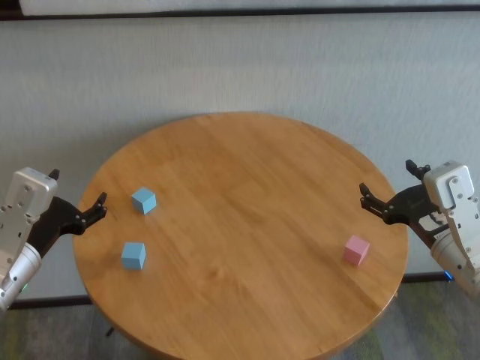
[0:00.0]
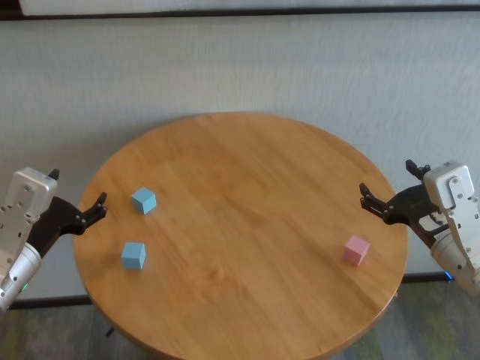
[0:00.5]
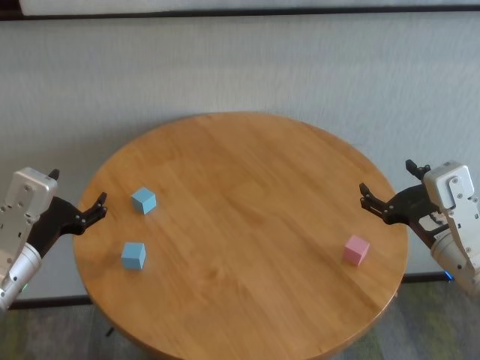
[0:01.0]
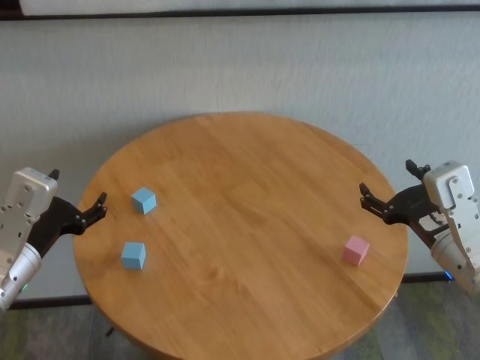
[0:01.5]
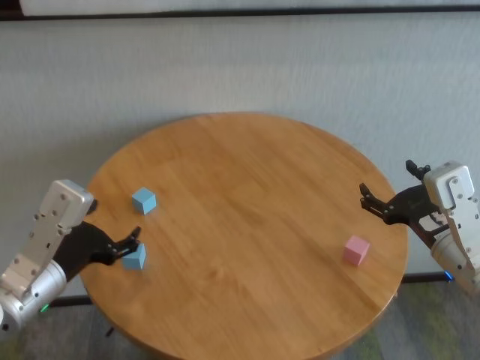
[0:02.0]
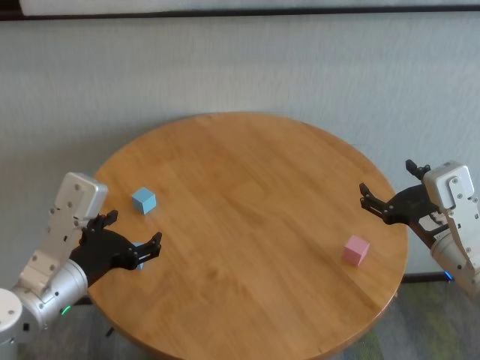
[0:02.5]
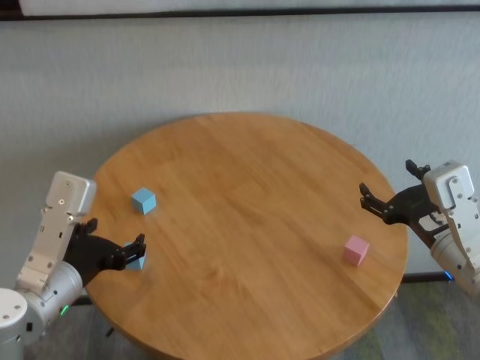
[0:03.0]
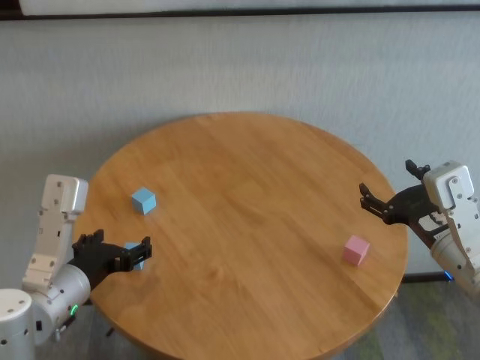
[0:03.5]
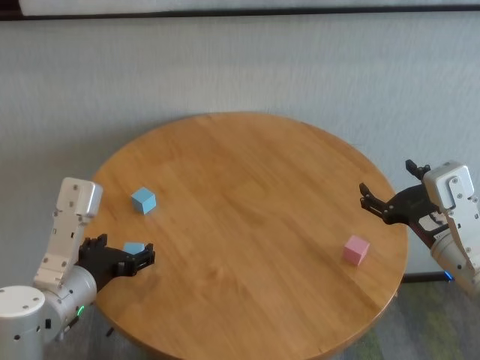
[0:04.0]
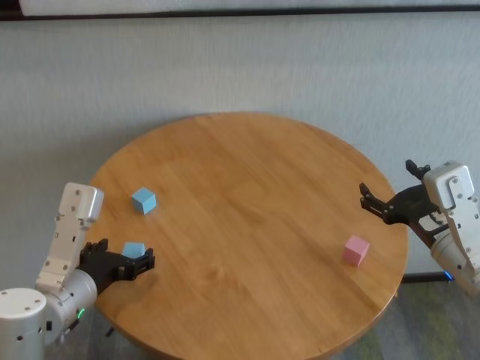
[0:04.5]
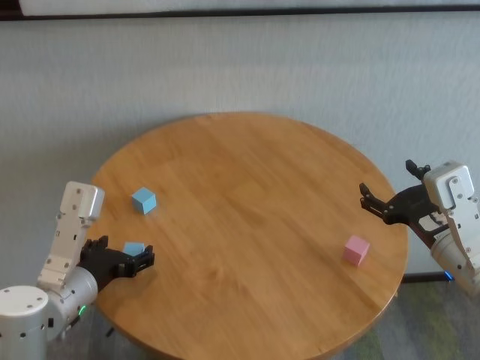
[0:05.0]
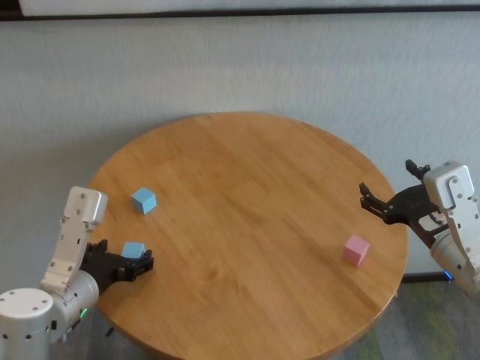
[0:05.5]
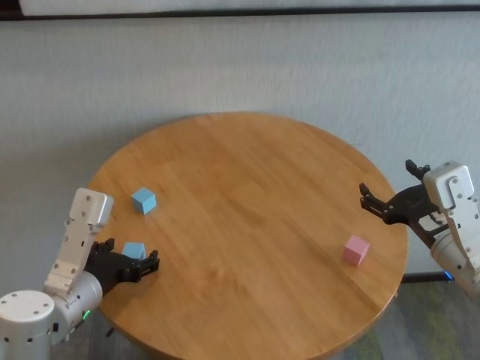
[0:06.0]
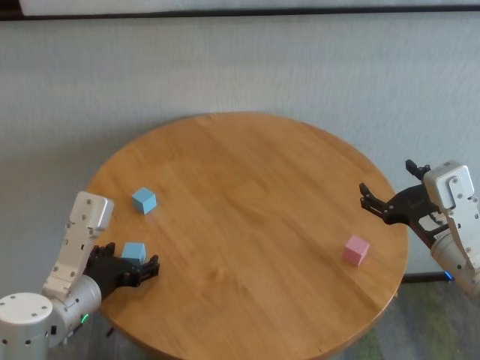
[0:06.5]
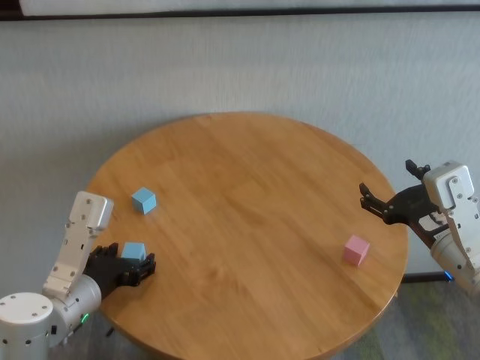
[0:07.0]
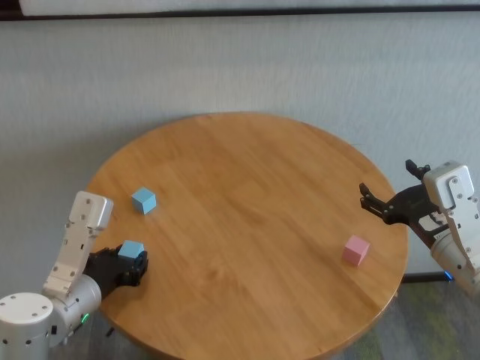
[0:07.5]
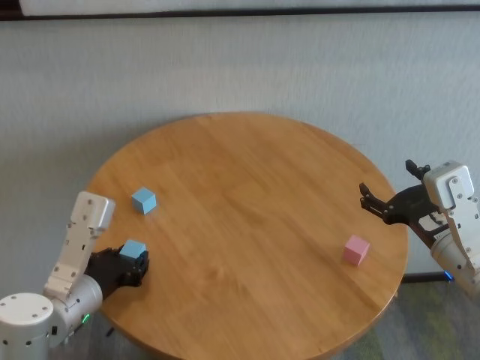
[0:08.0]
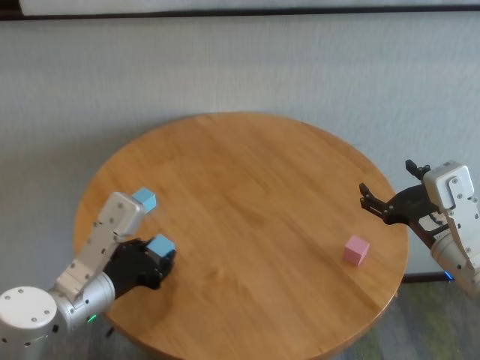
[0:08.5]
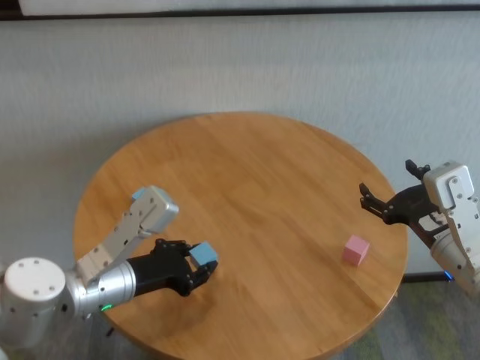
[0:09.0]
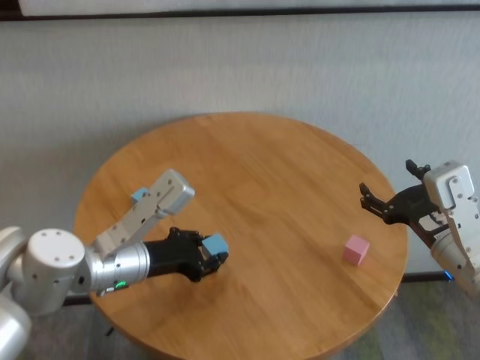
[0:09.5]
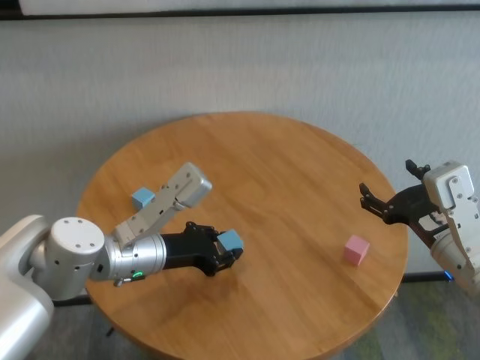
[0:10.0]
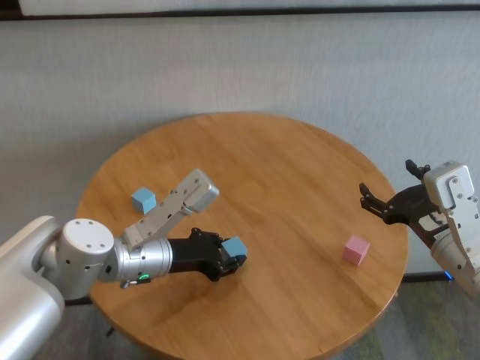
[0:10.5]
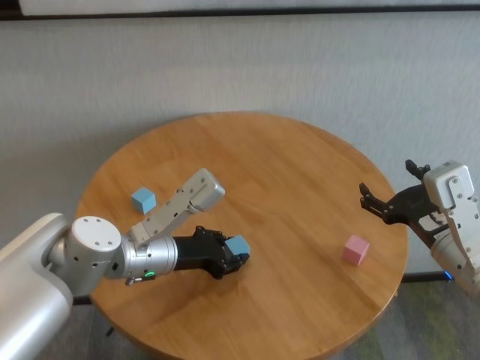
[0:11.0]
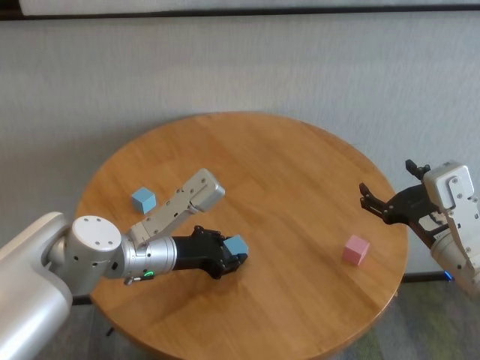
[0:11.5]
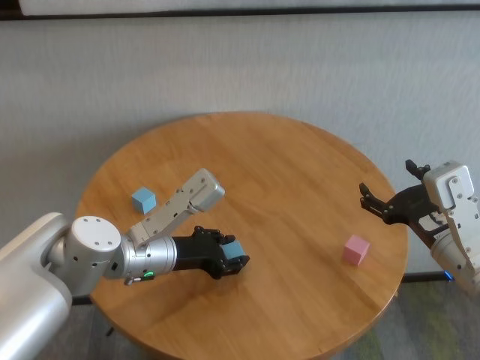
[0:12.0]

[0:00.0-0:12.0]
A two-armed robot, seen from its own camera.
Task of the whole recording: stack building blocks on the table.
Step, 0:00.0 to 0:07.5: Grasp the blue building block with left gripper.

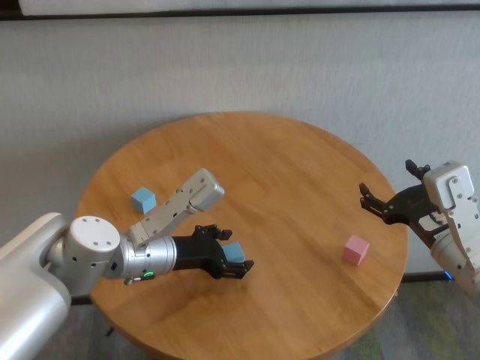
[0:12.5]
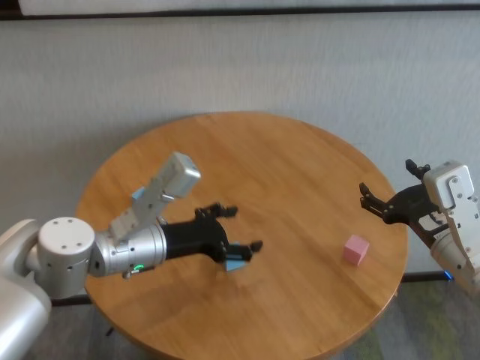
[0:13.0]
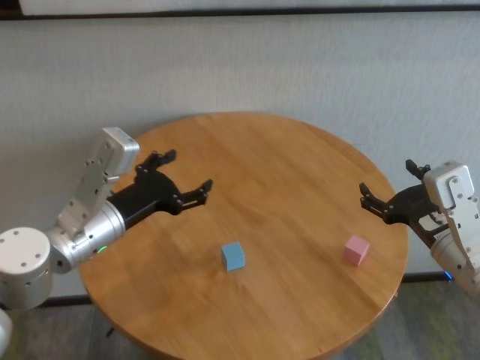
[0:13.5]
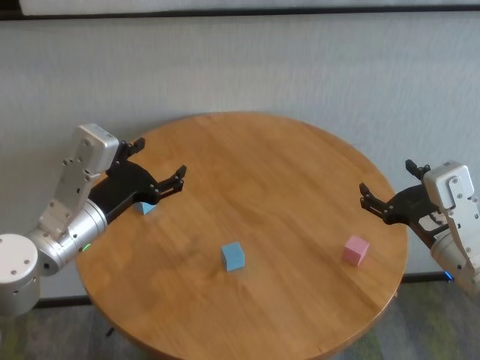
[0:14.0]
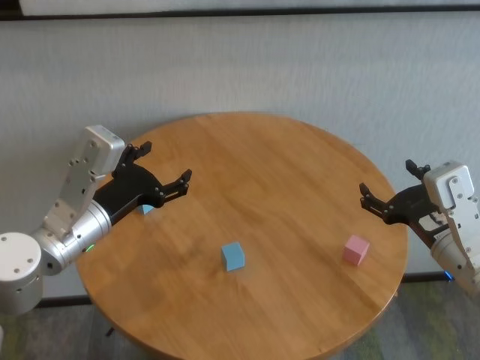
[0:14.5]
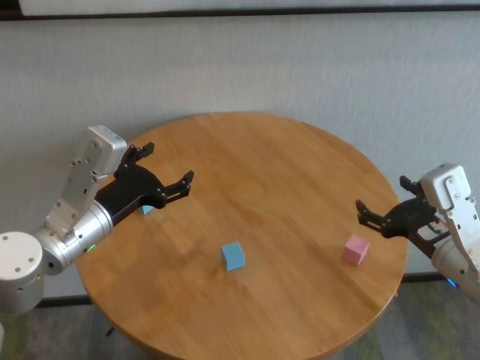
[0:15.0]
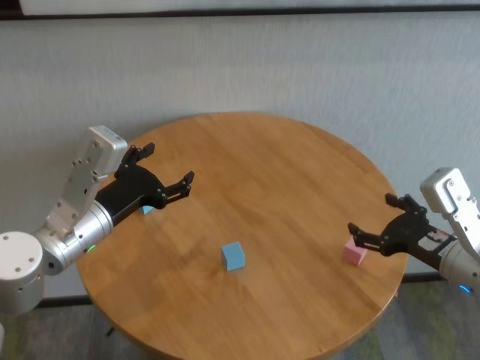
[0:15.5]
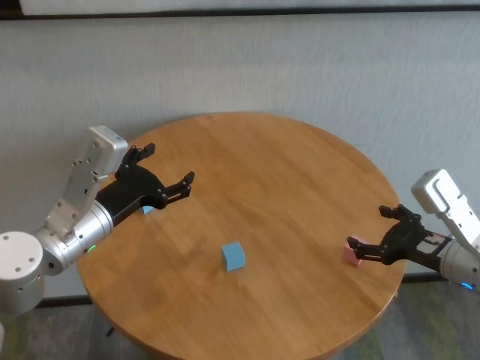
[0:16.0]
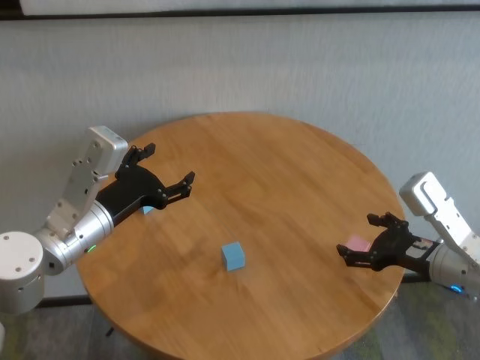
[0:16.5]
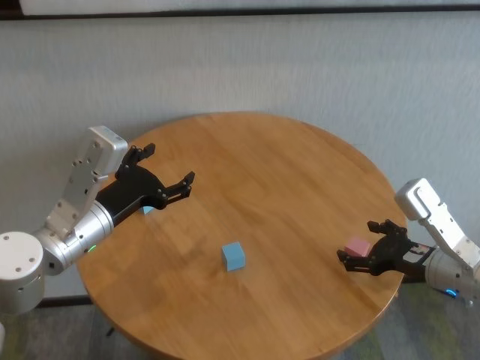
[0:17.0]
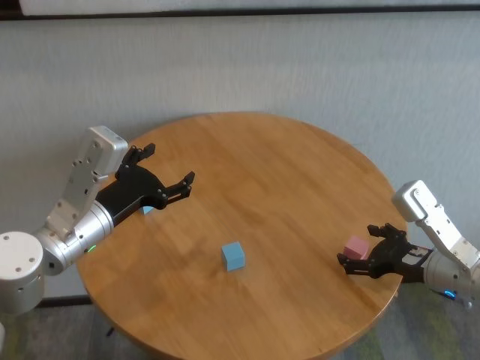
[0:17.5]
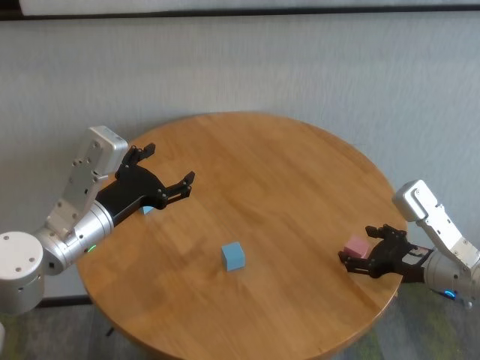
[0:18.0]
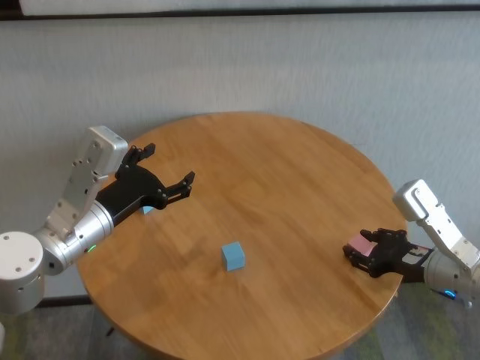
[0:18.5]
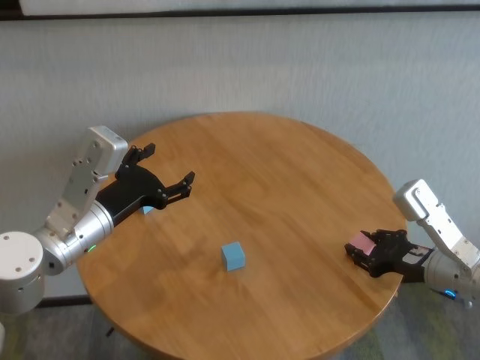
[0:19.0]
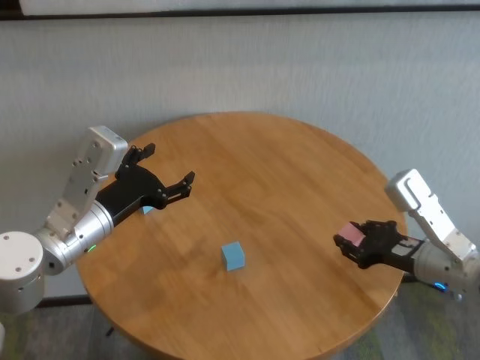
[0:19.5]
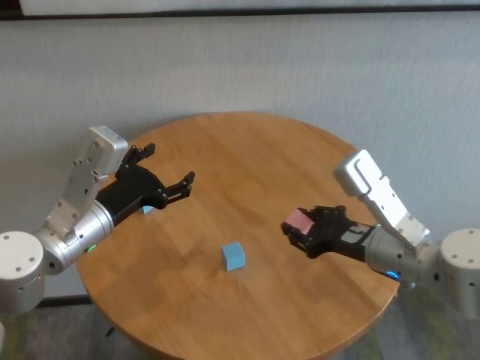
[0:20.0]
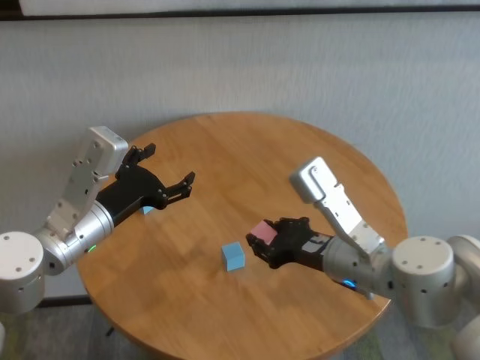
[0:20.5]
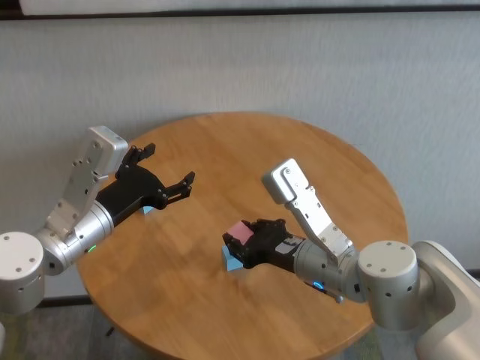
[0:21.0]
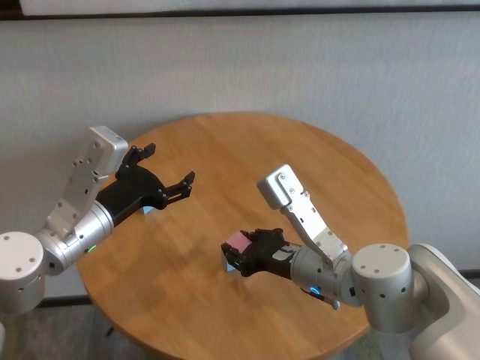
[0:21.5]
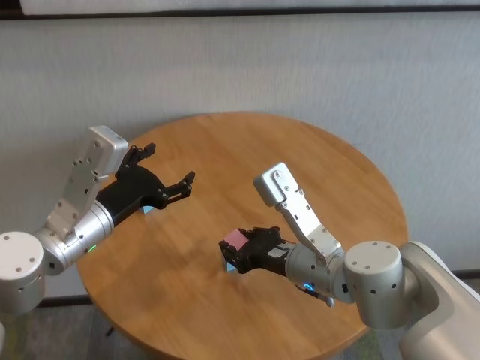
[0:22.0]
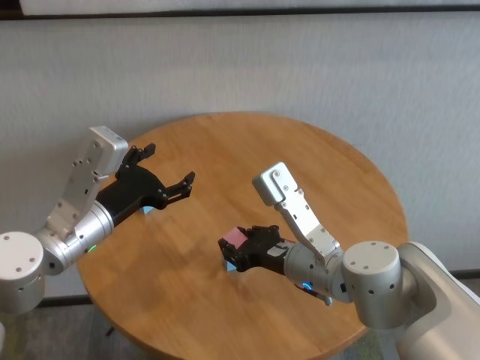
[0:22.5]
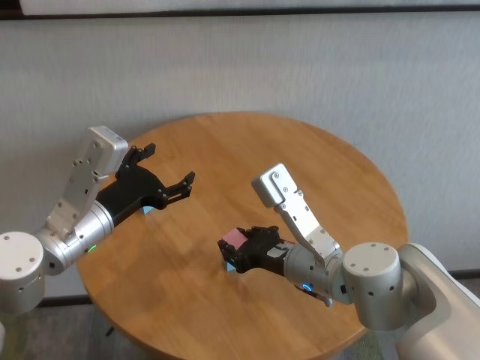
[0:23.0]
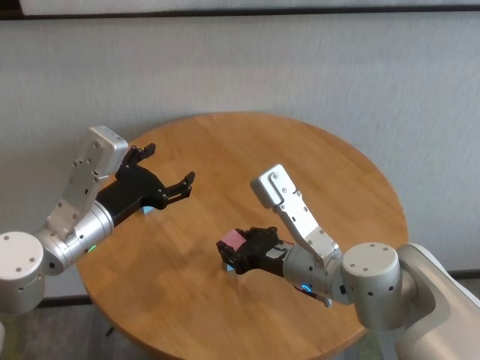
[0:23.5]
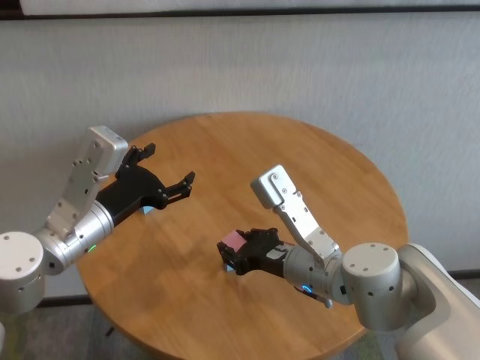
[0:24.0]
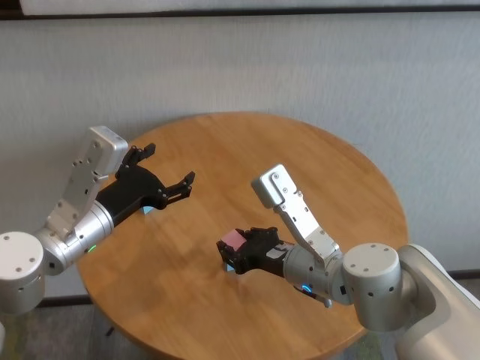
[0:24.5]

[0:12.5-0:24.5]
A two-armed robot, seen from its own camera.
Task of the whole recording: stack building blocks on the table.
Step, 0:13.0 to 0:19.0: Grasp the pink building block with right gripper.

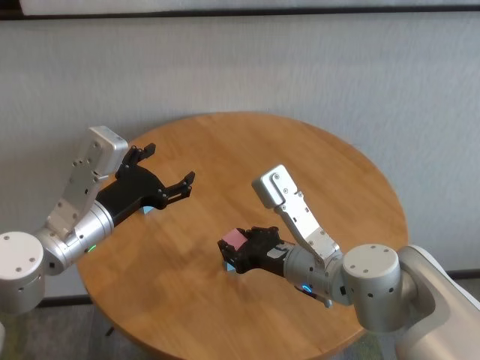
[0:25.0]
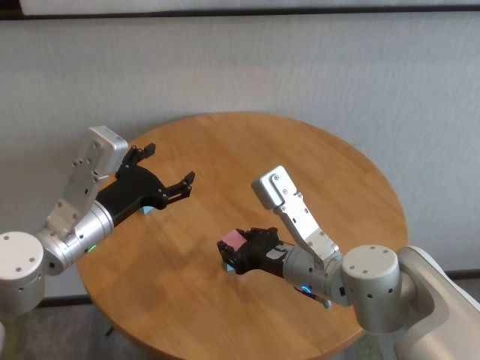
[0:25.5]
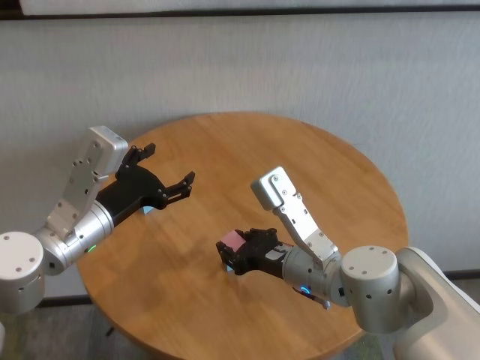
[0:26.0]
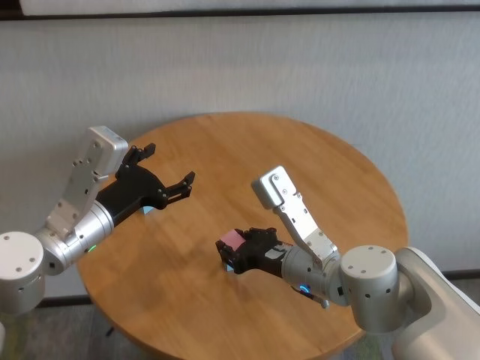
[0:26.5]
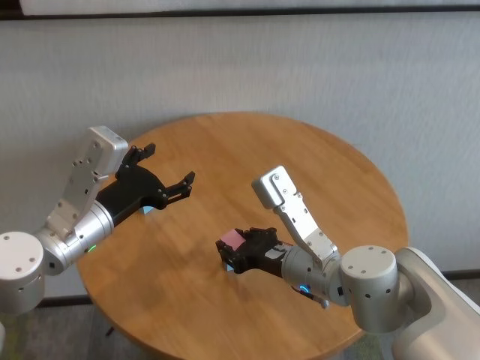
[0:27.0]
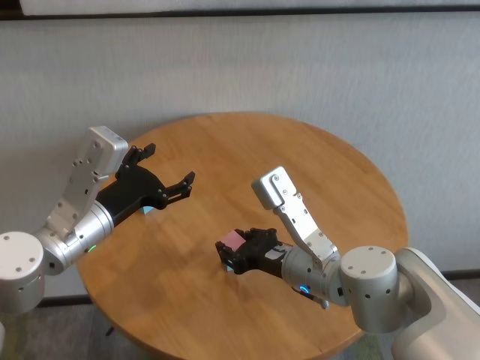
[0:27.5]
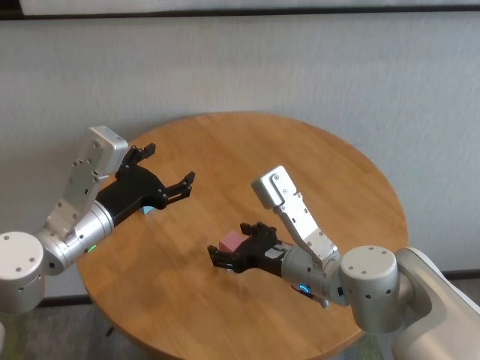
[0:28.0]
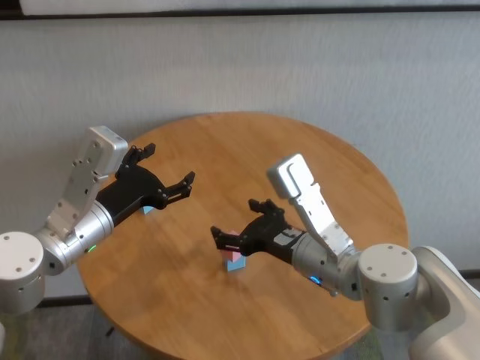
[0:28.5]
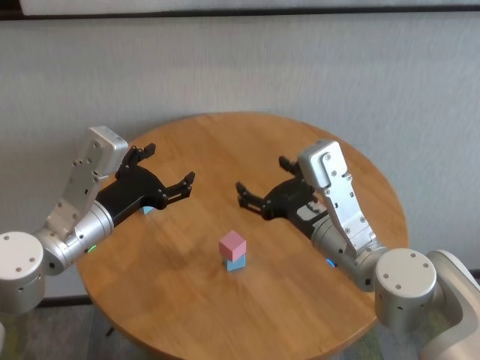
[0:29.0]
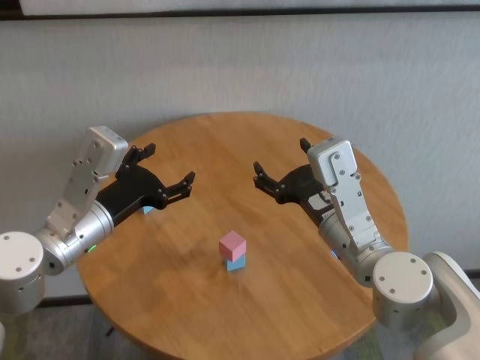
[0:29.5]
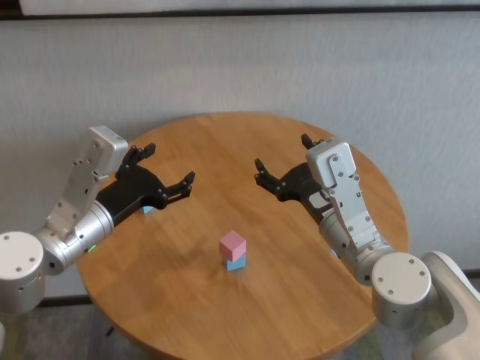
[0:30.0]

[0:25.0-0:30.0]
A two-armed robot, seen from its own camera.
Task of the whole recording: stack building blocks on the table.
Step, 0:25.0 to 0:28.0: Place the pink building block on the blue building blocks with right gripper.
